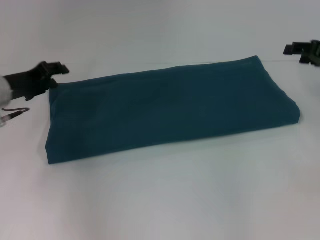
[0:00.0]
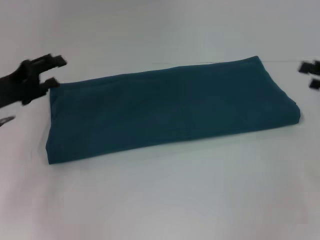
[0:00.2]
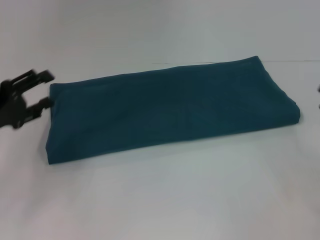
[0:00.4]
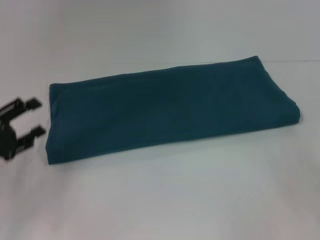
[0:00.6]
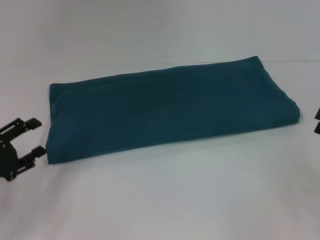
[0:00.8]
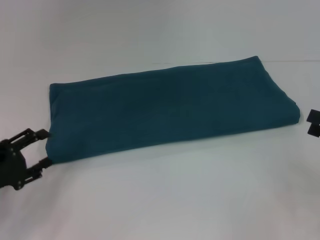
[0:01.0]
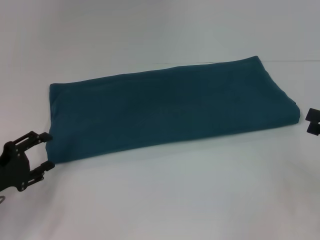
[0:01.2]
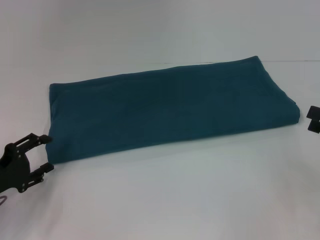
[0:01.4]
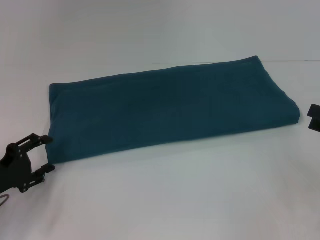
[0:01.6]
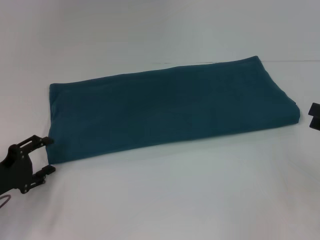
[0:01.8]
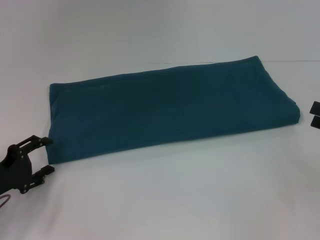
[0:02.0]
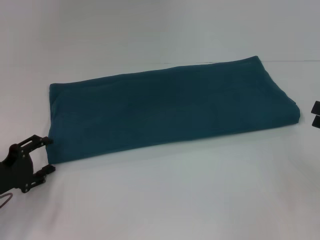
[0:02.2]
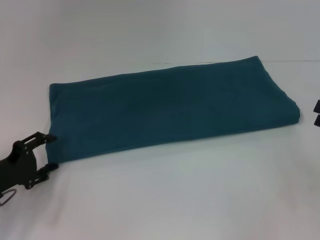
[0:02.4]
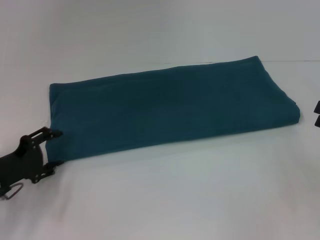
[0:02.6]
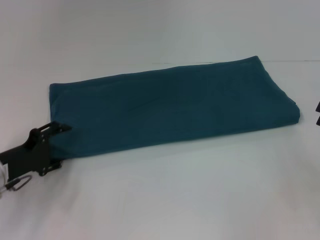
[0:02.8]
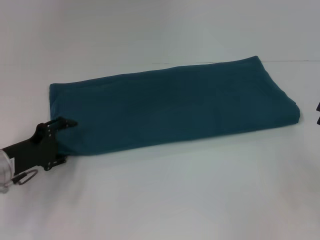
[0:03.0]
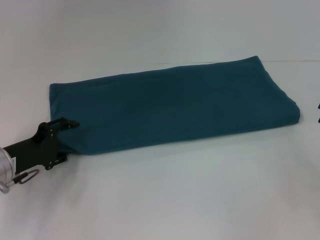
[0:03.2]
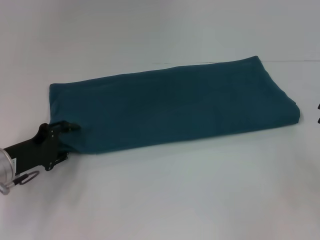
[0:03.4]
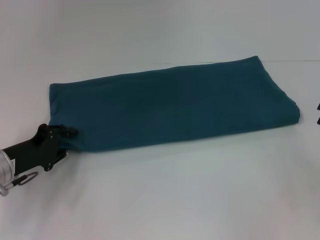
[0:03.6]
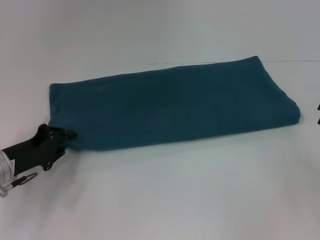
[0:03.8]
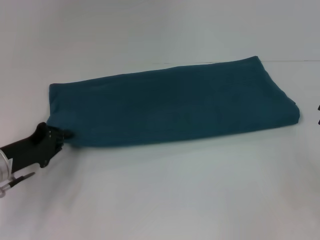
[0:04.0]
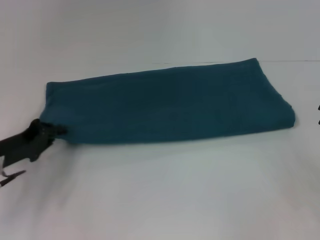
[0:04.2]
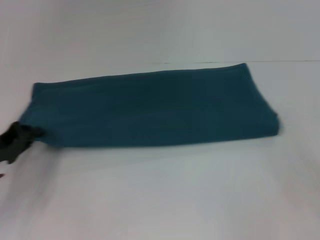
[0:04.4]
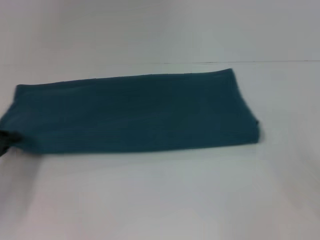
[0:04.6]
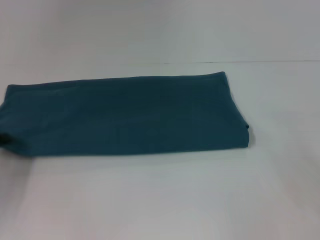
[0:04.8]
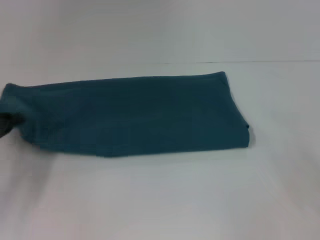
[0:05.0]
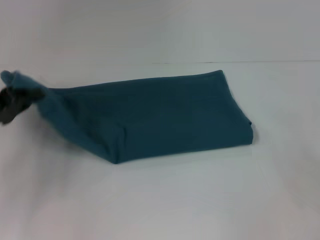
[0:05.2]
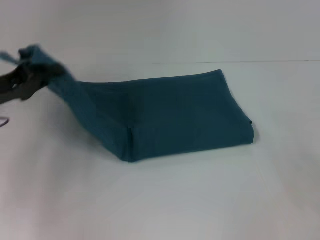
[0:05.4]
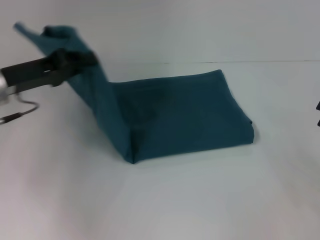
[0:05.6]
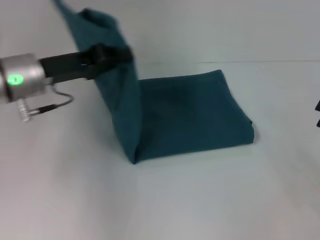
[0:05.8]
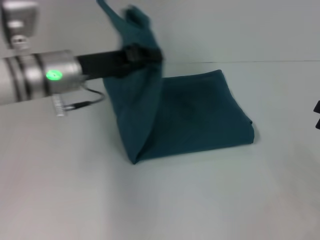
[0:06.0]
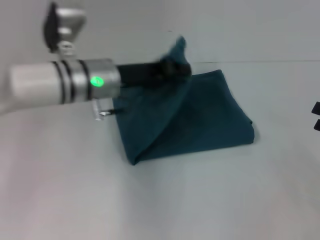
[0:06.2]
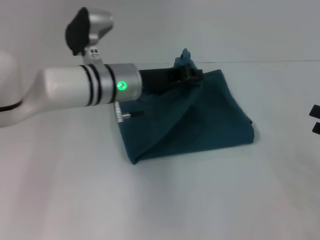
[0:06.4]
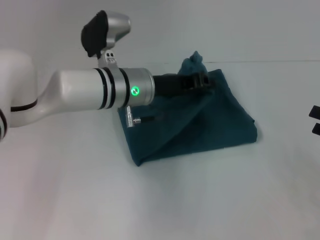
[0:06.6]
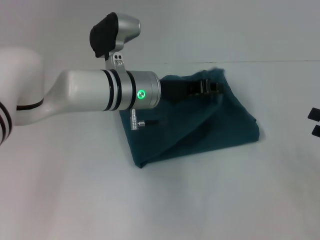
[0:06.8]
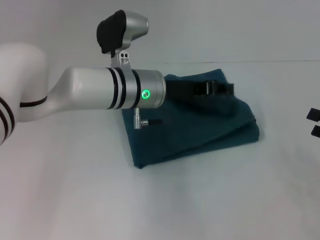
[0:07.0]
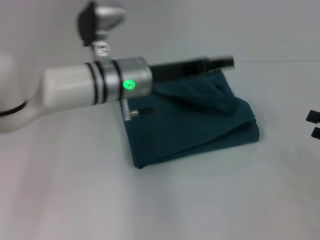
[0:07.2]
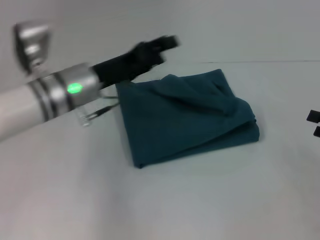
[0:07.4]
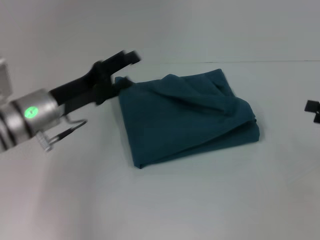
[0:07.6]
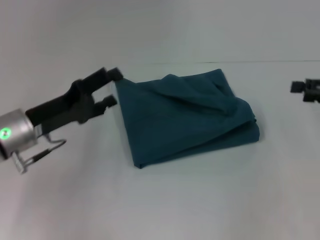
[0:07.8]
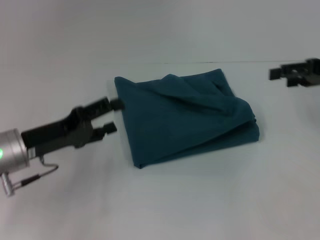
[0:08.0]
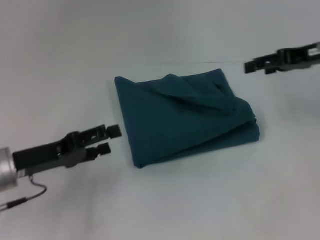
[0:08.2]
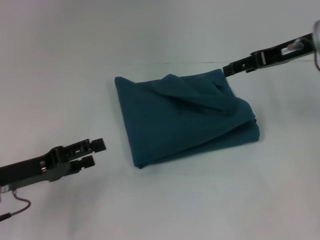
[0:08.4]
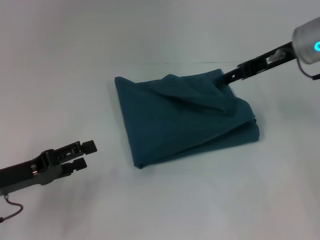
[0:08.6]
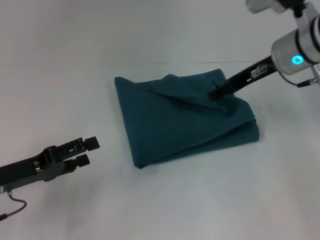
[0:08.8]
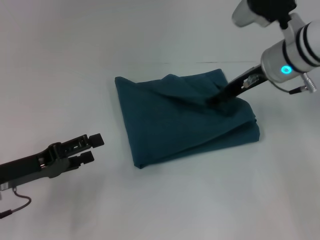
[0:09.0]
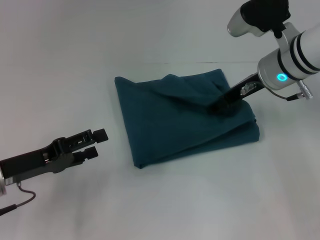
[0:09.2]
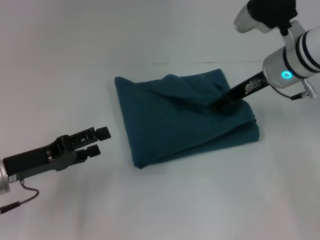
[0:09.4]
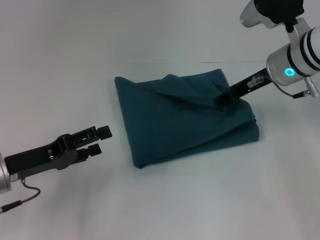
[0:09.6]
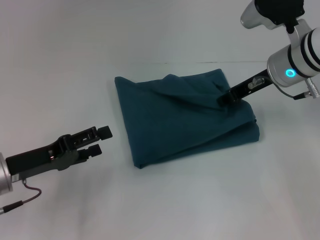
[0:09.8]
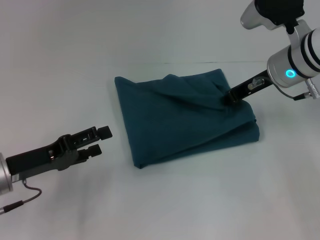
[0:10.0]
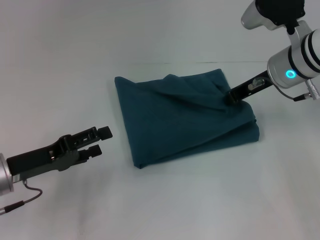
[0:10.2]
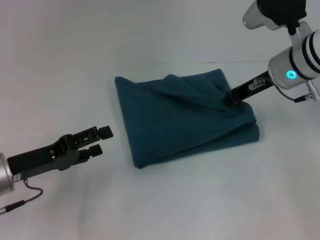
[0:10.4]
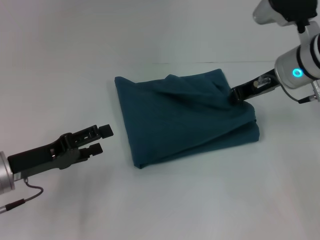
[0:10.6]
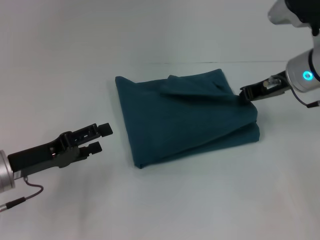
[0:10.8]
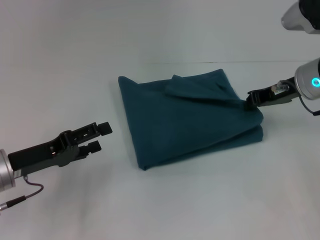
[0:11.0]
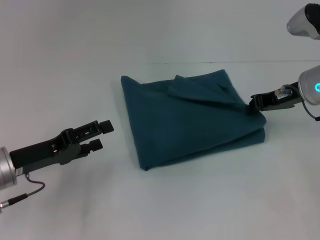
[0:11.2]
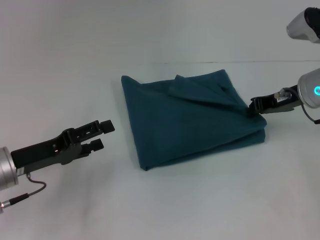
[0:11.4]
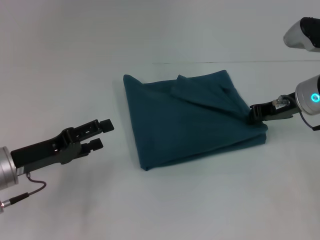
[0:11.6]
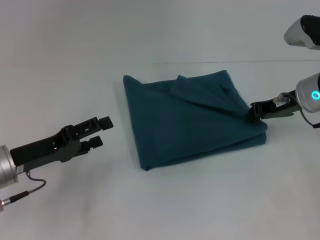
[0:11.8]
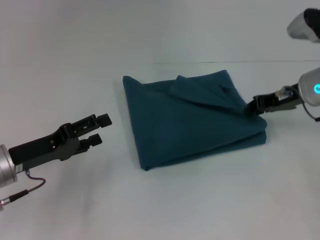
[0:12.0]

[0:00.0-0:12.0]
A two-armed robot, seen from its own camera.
Step, 0:00.0 to 0:07.0: Fold the clothes to the left.
0:00.0 to 0:01.6: The right gripper travels backward by some 15 cm, and opens up, while the left gripper is displaced backward and downward by some 15 cm, and opens up.
0:01.6 to 0:03.0: The left gripper moves some 5 cm.
0:03.0 to 0:04.4: The left gripper closes.
0:04.4 to 0:06.0: The left gripper shifts roughly 20 cm to the right, upward and forward.
0:06.0 to 0:07.6: The left gripper travels downward by roughly 5 cm, goes to the right and returns, roughly 10 cm each way, and opens its fingers.
0:07.6 to 0:09.0: The left gripper moves backward and to the left, approximately 10 cm, while the right gripper travels to the left and forward by roughly 25 cm.
0:09.0 to 0:10.4: The right gripper closes.
0:10.4 to 0:12.0: The right gripper changes place by approximately 5 cm.

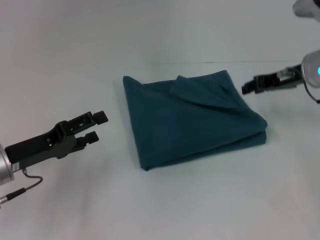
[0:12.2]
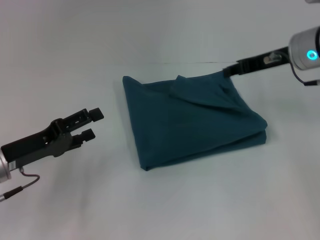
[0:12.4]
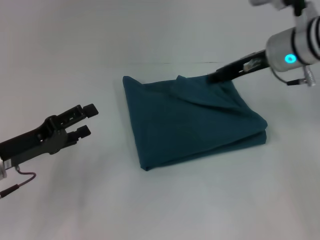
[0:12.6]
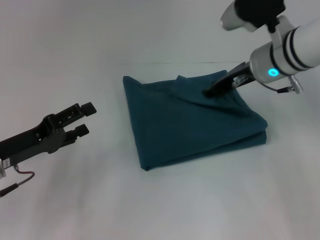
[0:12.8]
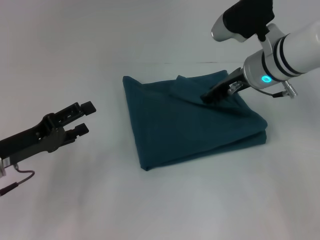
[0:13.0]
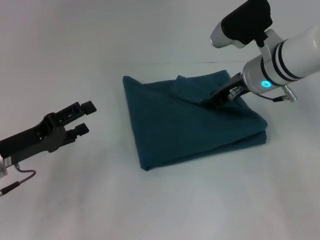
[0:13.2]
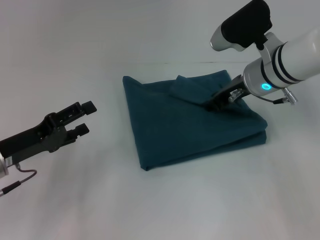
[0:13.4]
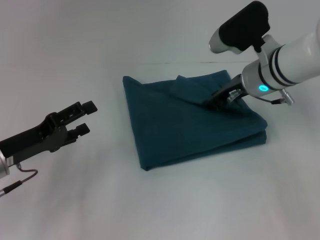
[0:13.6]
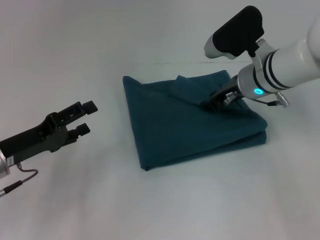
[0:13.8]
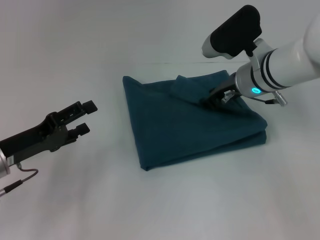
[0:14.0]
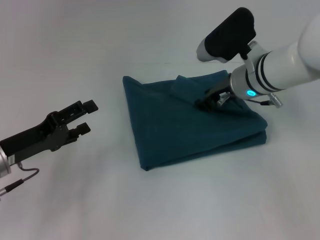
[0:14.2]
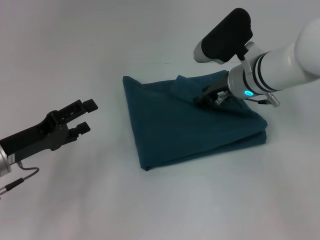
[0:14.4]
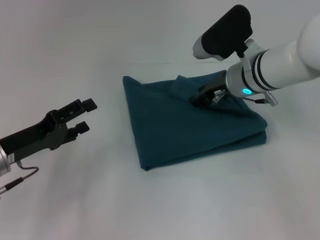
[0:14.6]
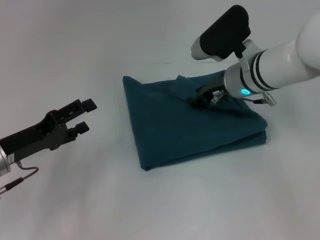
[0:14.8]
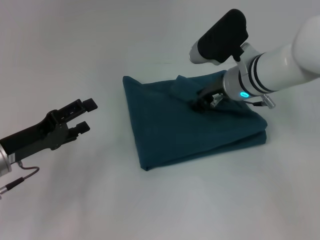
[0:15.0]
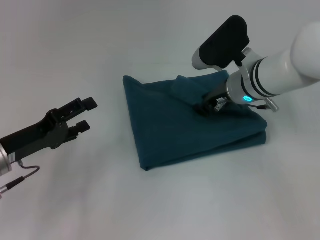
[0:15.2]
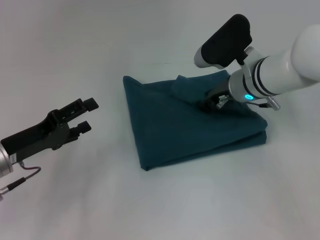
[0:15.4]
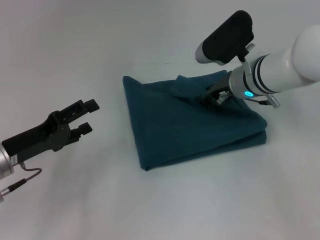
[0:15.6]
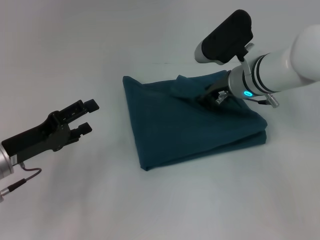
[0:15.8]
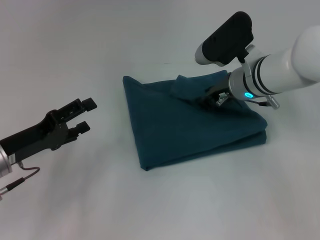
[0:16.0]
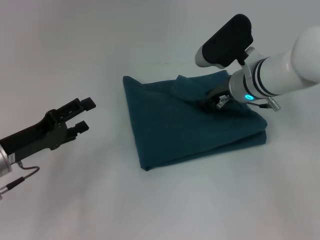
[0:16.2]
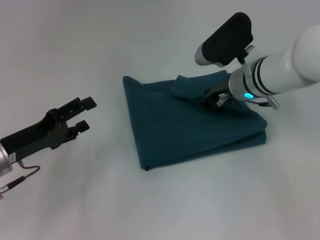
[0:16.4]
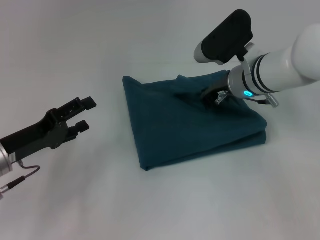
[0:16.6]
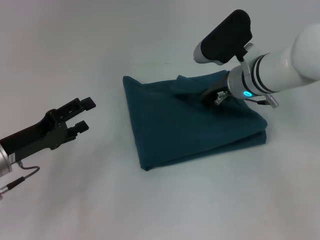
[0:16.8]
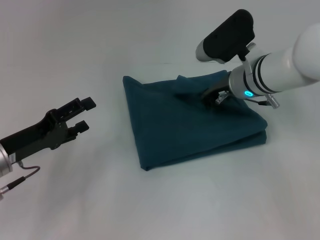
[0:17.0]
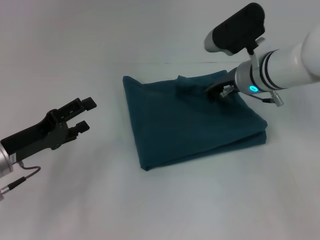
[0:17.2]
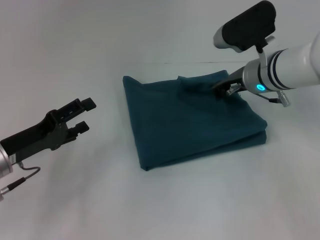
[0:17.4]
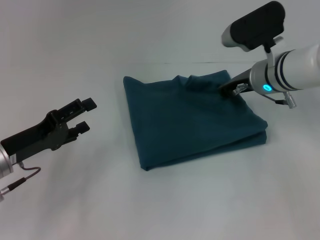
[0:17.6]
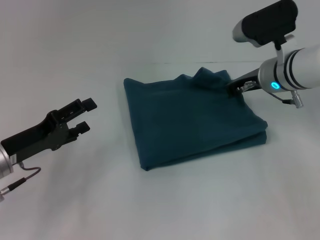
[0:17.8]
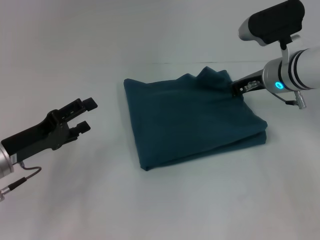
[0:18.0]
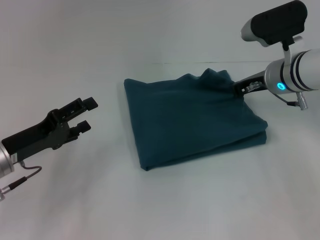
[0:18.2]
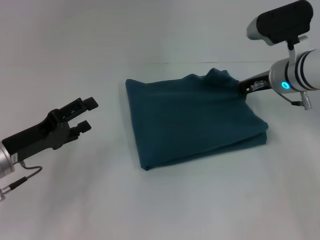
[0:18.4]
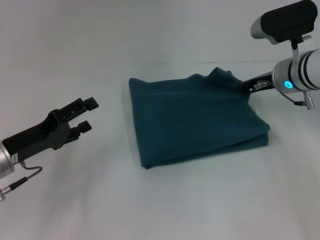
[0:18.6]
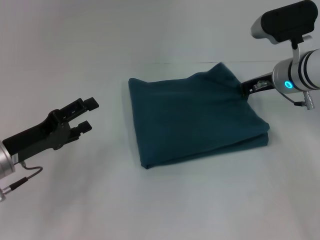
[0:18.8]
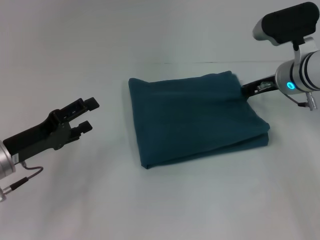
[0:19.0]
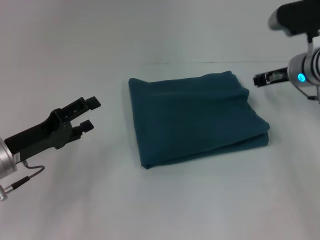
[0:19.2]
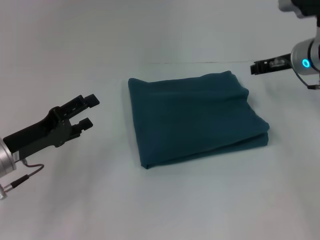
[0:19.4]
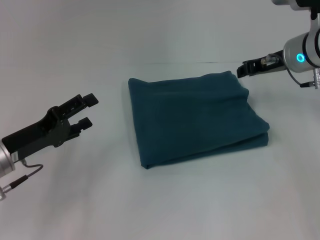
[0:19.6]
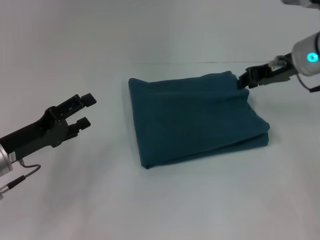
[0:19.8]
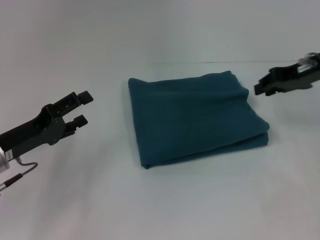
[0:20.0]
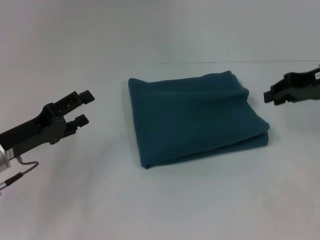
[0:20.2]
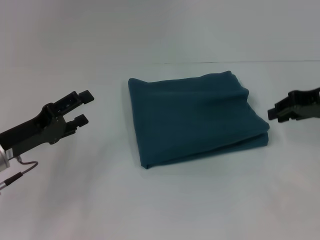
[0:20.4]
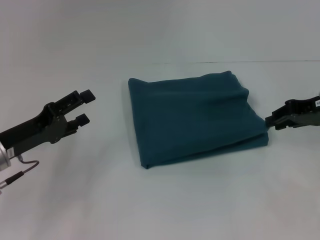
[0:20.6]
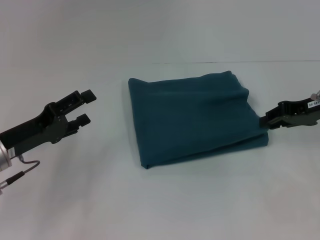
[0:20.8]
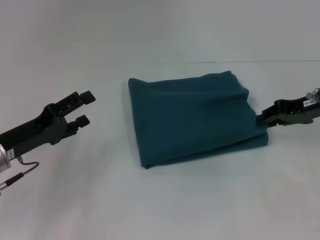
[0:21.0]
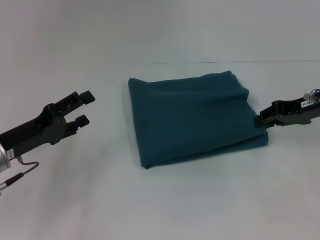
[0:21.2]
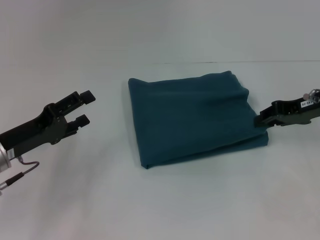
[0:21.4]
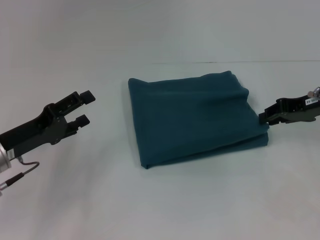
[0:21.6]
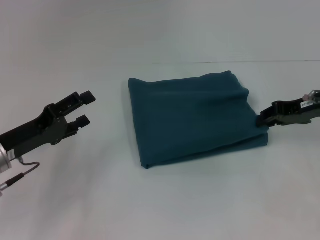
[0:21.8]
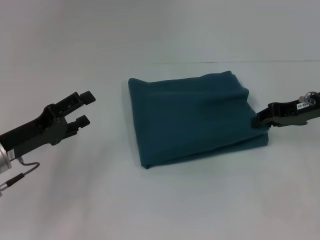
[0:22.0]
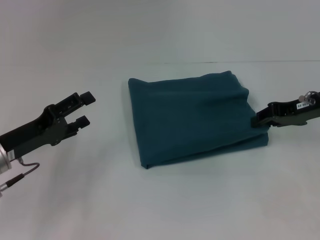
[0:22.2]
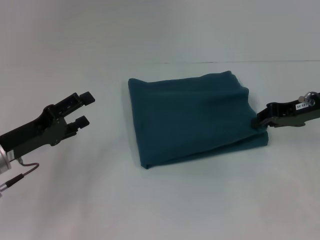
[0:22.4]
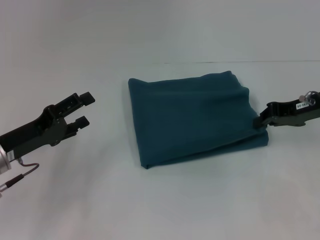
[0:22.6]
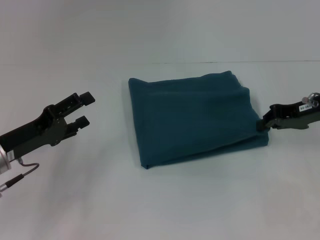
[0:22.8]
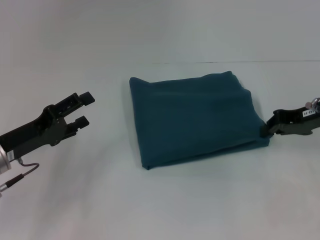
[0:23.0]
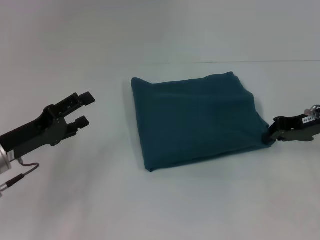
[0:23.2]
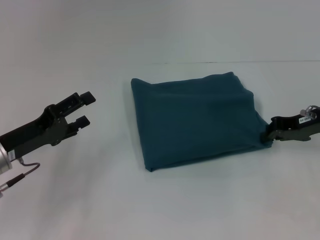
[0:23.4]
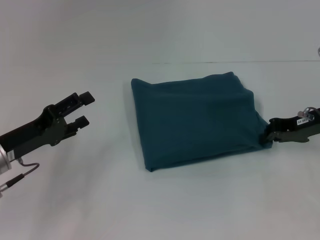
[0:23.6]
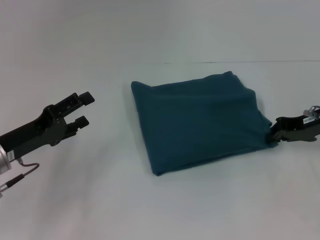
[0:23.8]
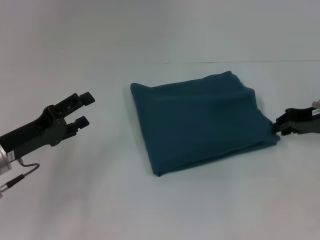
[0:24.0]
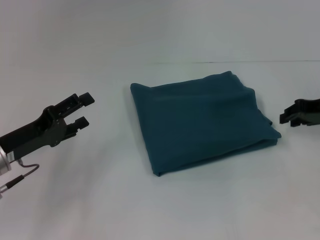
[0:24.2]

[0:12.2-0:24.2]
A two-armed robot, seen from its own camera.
0:12.2 to 0:13.8: The right gripper heads to the left, covering some 10 cm.
0:13.8 to 0:15.2: The grippers move only a little.
0:15.2 to 0:16.6: Both grippers stay about where they are.
0:16.6 to 0:18.2: The right gripper is displaced to the right by about 5 cm.
0:18.2 to 0:19.8: The right gripper travels upward by approximately 5 cm.
0:19.8 to 0:21.2: The right gripper changes place by approximately 5 cm.
0:21.2 to 0:22.6: Both grippers stay about where they are.
0:22.6 to 0:24.2: The grippers make only small movements.
